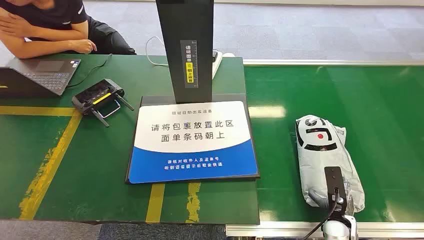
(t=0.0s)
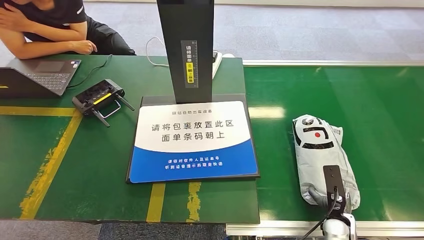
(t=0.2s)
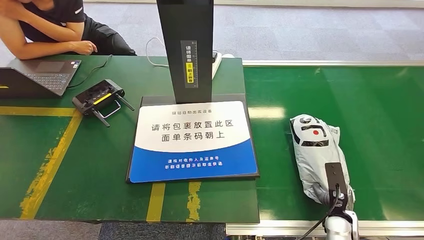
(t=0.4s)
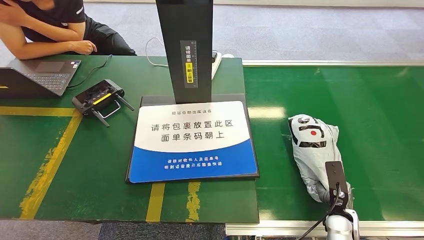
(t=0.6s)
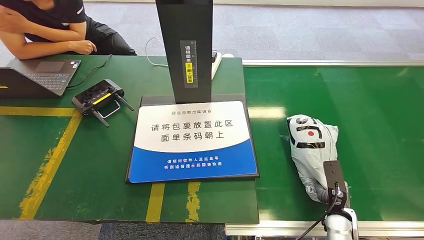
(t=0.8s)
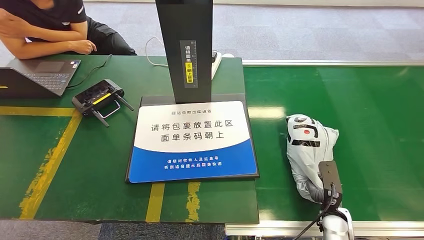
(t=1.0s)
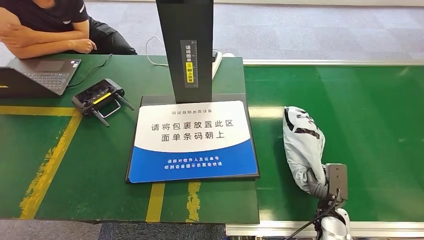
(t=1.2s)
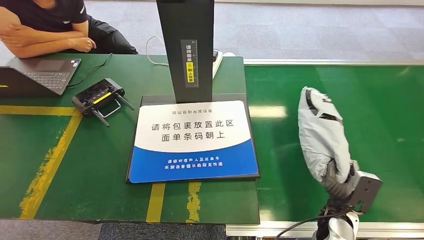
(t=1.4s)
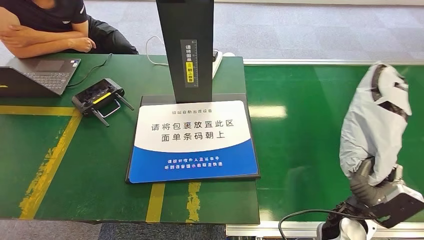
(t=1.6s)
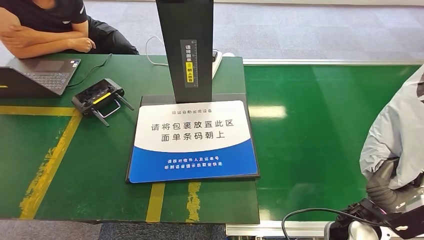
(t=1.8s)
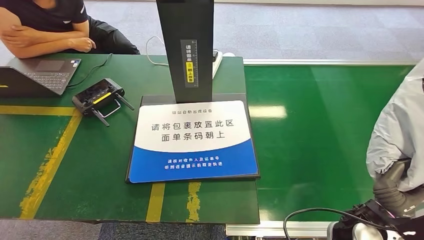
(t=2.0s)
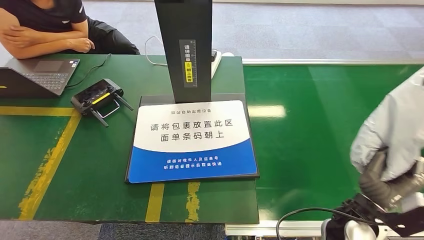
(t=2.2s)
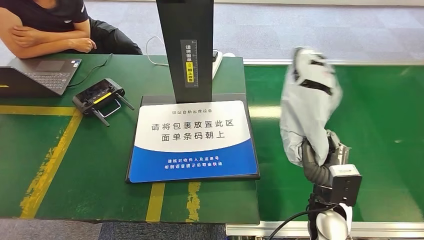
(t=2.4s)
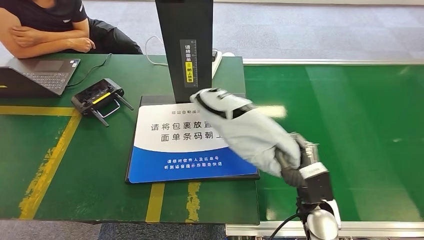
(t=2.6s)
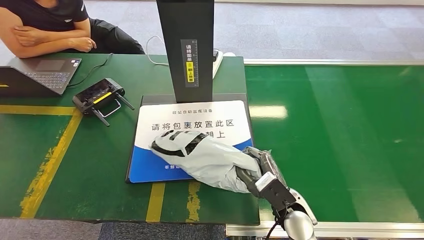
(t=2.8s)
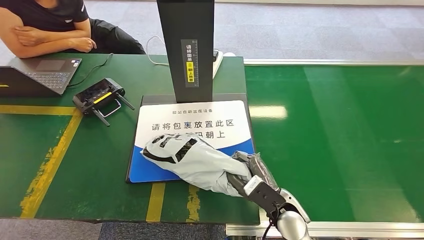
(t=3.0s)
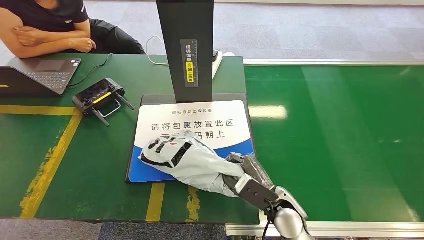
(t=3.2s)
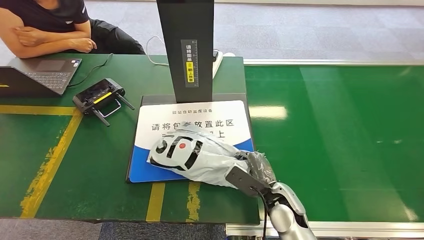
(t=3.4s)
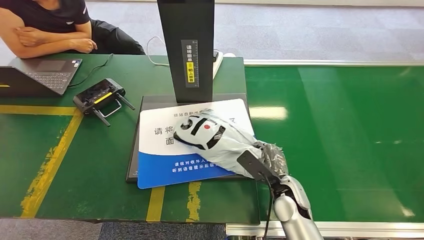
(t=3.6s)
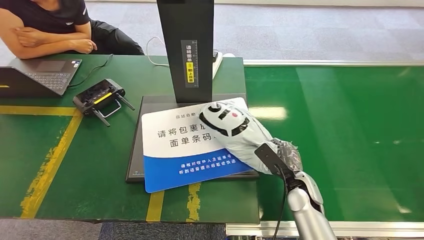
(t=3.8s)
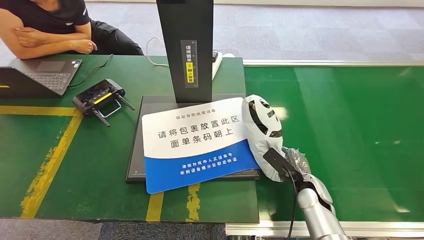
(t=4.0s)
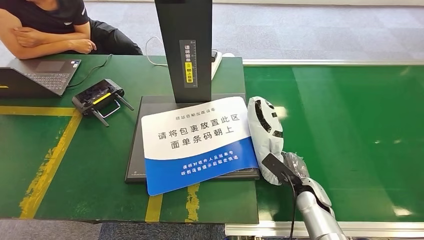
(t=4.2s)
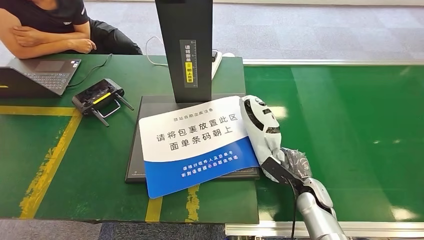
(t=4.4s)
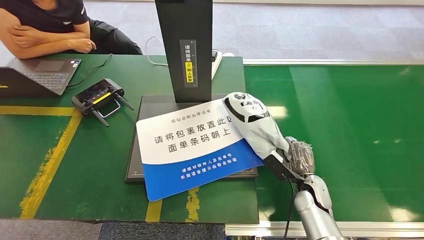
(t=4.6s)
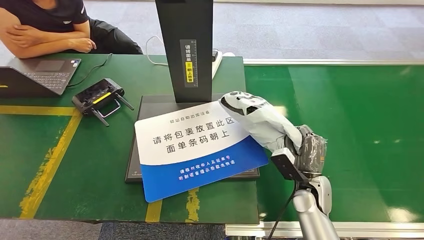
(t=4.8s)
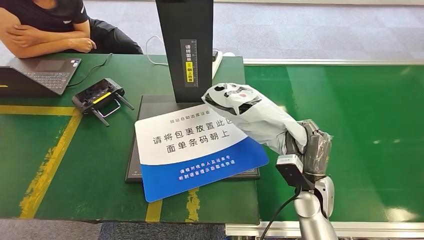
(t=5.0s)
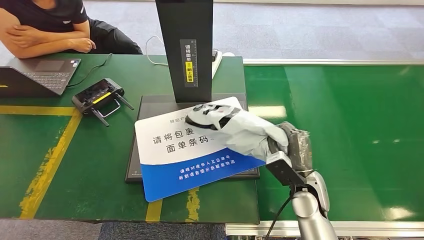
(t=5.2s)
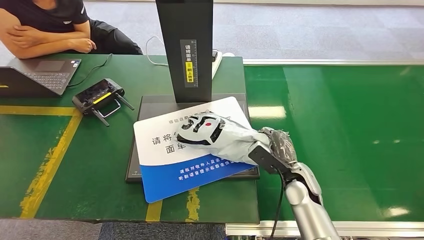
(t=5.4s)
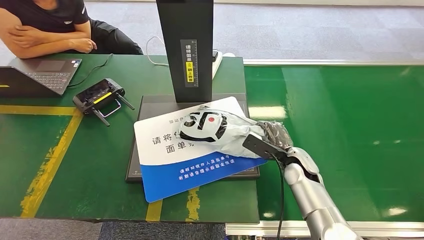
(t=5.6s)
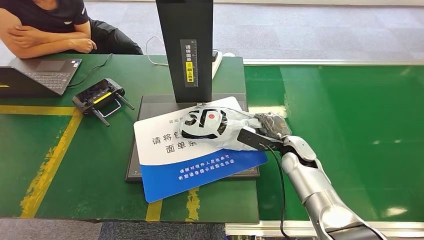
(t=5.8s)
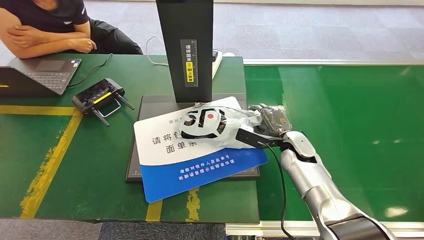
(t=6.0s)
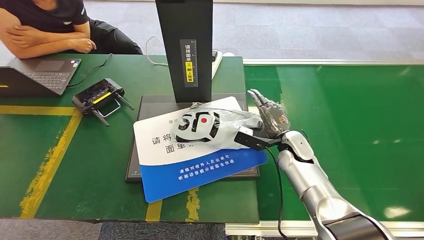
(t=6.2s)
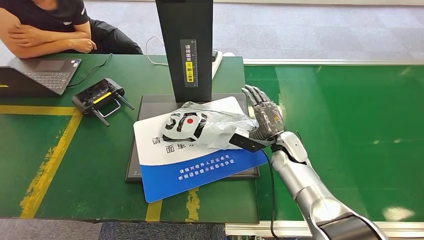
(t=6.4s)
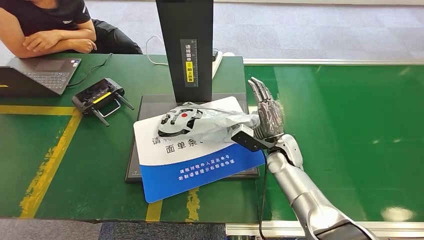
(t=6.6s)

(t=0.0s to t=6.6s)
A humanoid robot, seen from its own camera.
Task of the whole recording: Weigh the package on the weighing device and place it in the left basket.
Step, t=0.0s - t=1.8s: Pick up the package from the conveyor belt.
Step, t=2.0s - t=6.6s: Place the package onto the inbound machine.
t=3.2s - t=5.0s: The right hand travels to the right by about 10 cm.
t=5.0s - t=6.6s: The right hand moves forward, roughly 10 cm.
